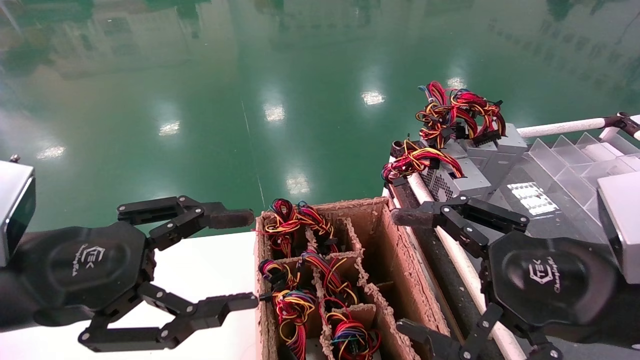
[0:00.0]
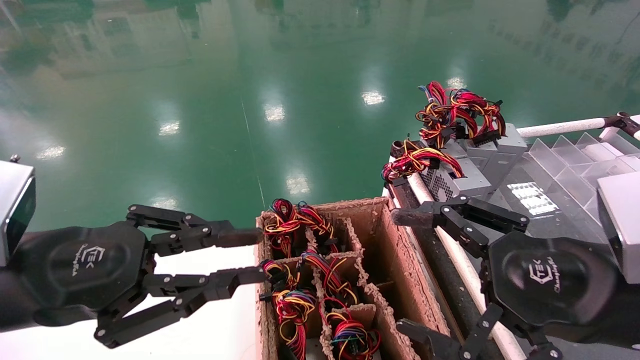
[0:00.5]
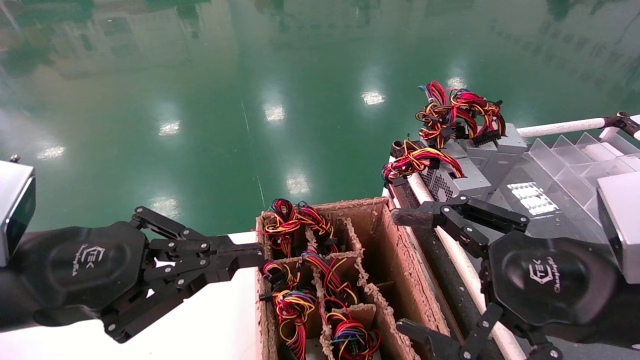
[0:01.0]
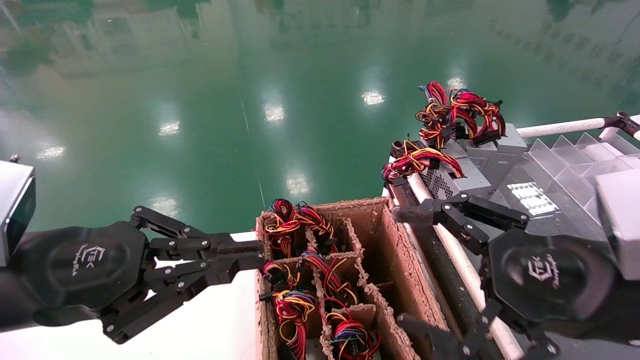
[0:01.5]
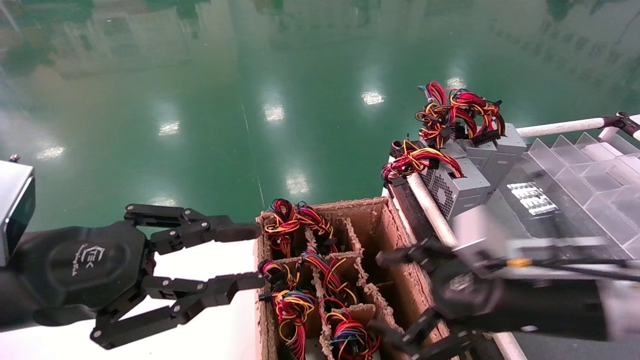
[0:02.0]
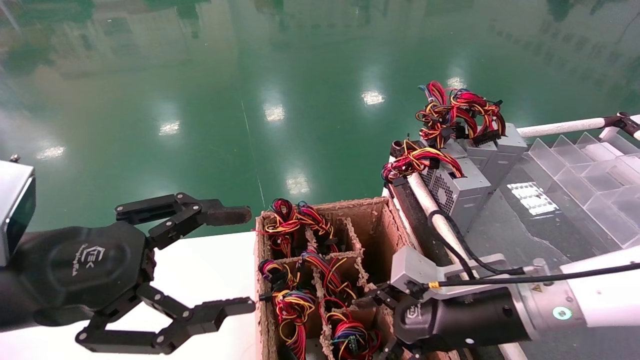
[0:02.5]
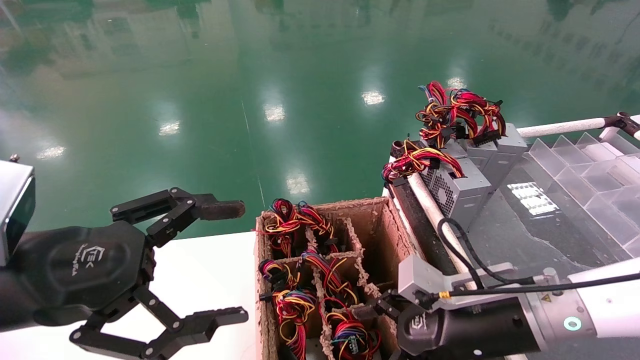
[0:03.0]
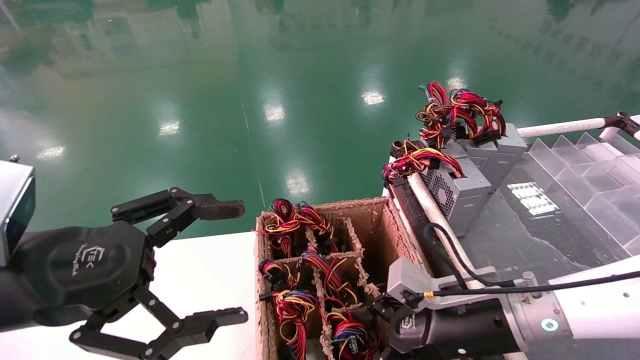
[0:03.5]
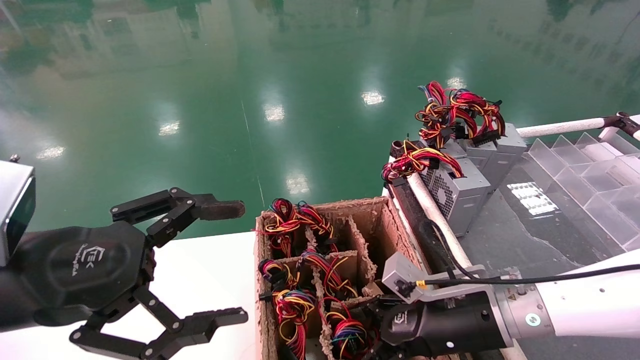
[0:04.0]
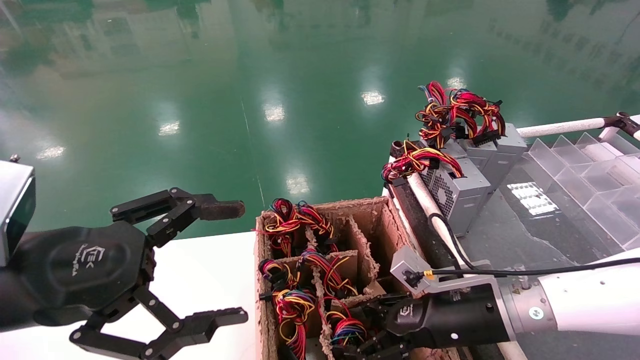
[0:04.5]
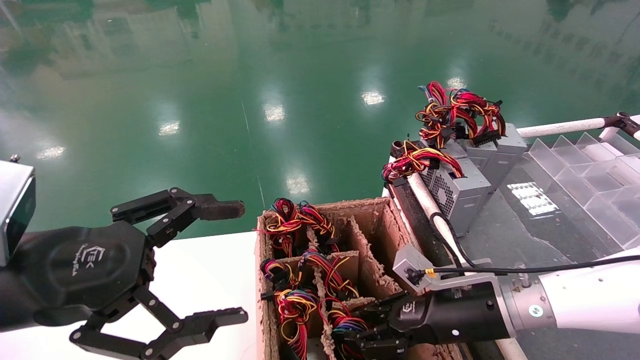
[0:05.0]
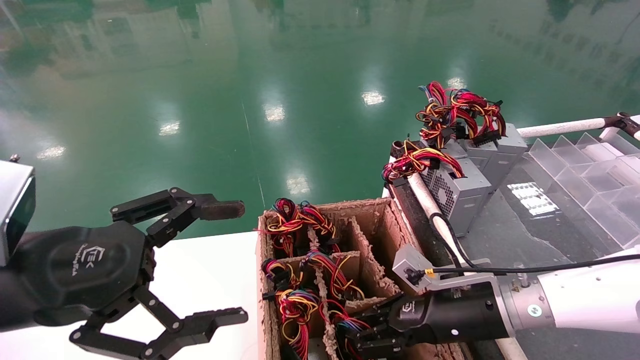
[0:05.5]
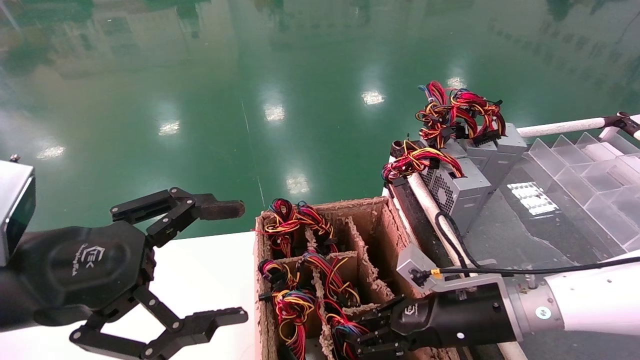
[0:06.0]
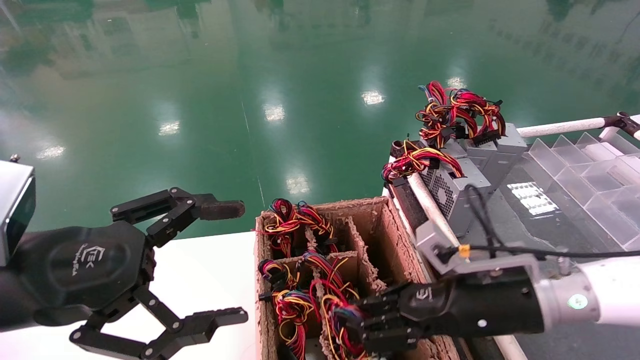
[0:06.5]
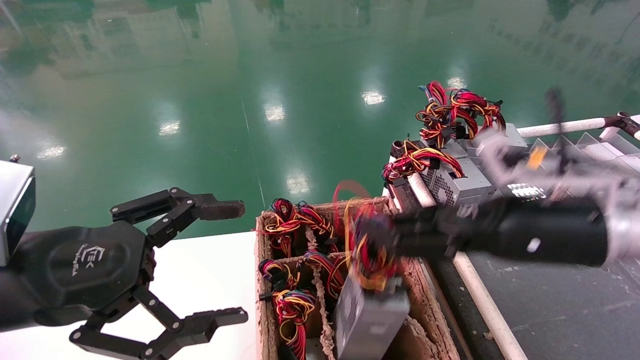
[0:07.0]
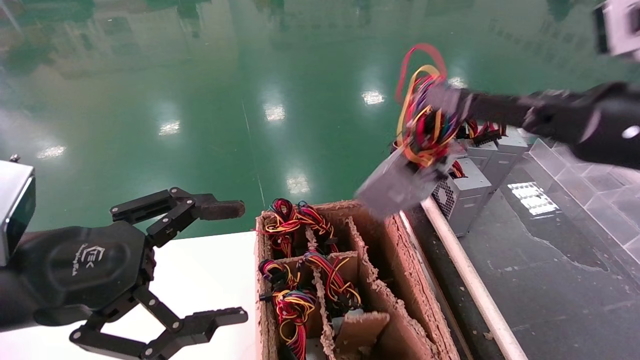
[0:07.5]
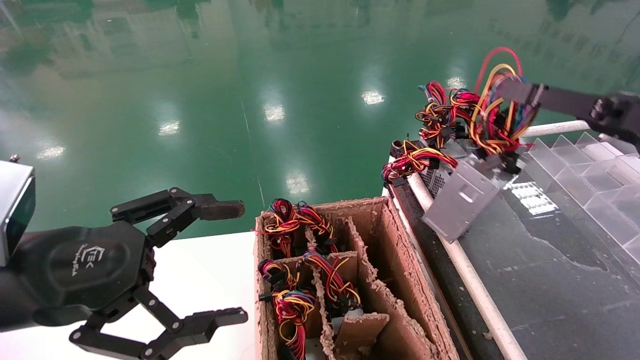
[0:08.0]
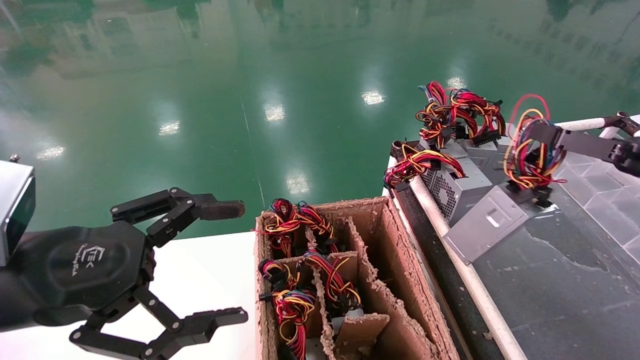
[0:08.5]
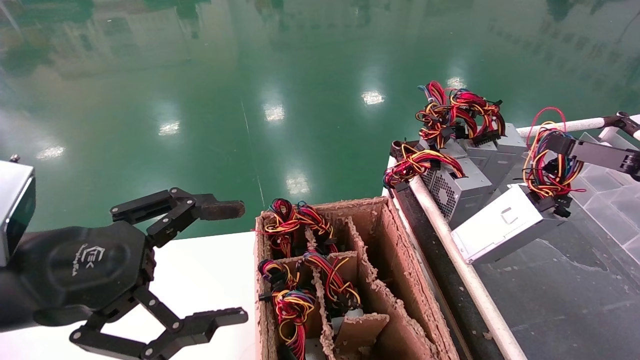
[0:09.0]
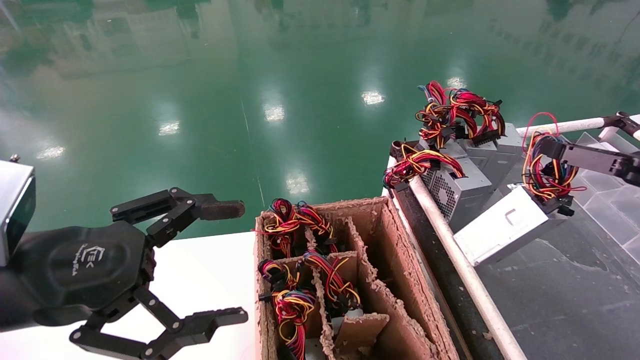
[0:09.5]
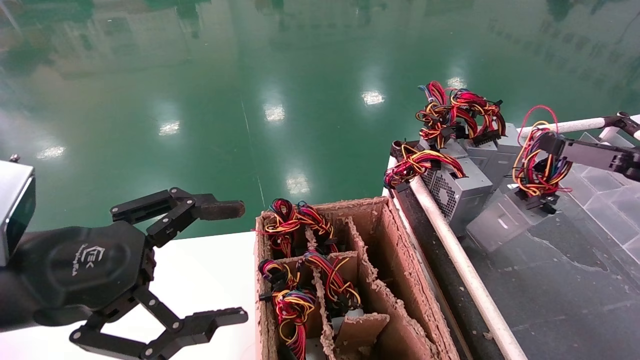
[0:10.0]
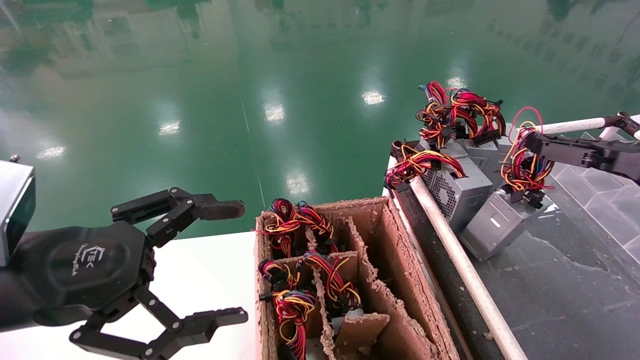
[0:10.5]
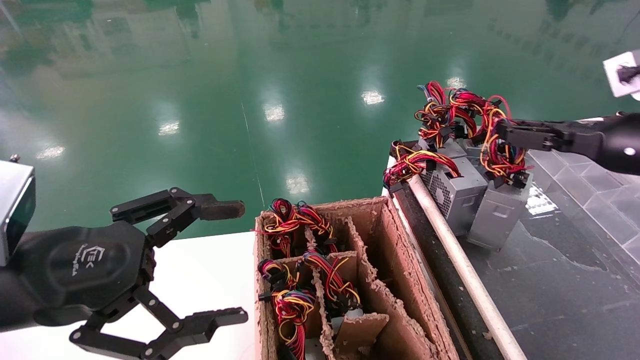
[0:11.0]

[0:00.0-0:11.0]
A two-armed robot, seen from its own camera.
Step, 0:01.0 to 0:05.0: Grab and lift the power supply from the large box.
0:00.0 to 0:02.0: The left gripper closes its fingers. Meanwhile the right gripper goes approximately 10 cm forward and downward.
0:02.0 to 0:03.5: The right gripper travels downward by some 5 cm; the left gripper opens its fingers.
0:03.5 to 0:05.5: The right gripper closes.
0:05.5 to 0:07.5: The right gripper heads upward and to the right, covering about 25 cm.
0:07.5 to 0:09.0: The right gripper goes roughly 15 cm to the right and downward.
0:09.0 to 0:11.0: The right gripper moves forward and to the left, some 10 cm.

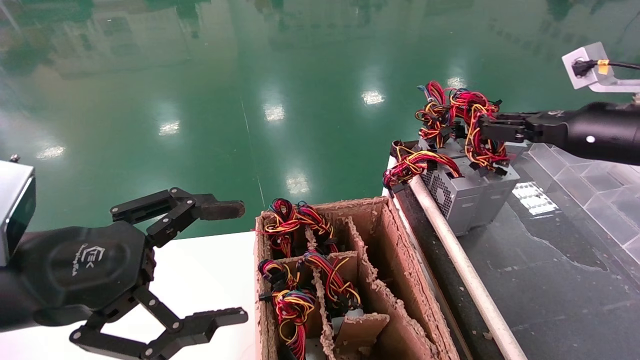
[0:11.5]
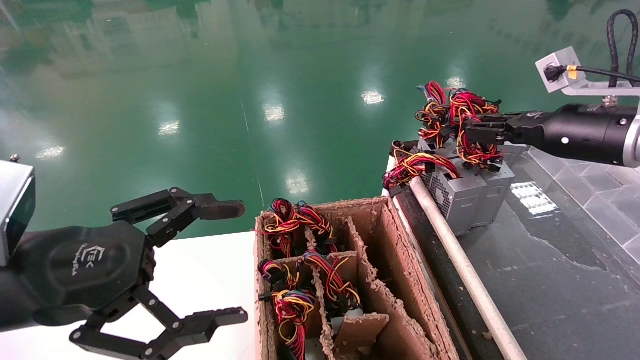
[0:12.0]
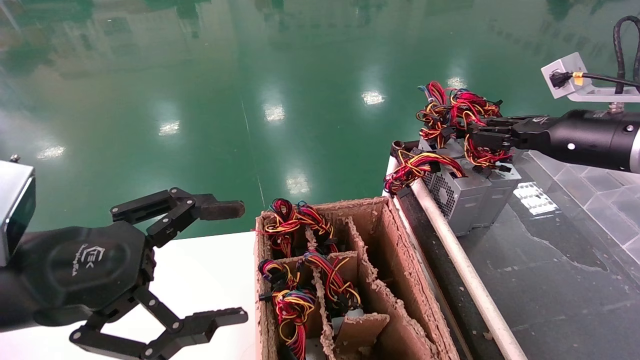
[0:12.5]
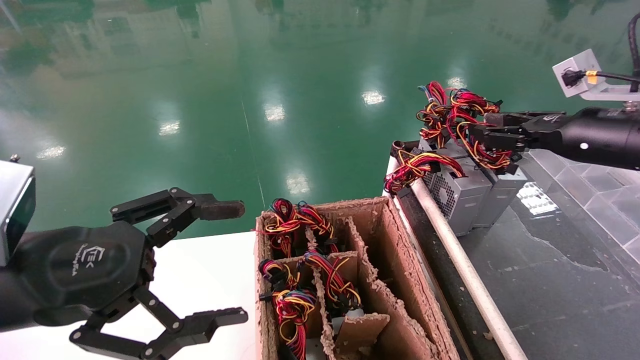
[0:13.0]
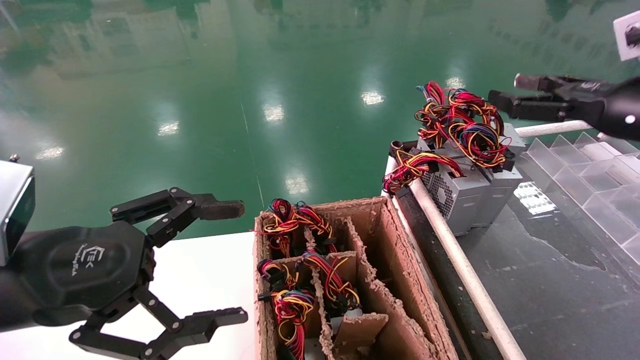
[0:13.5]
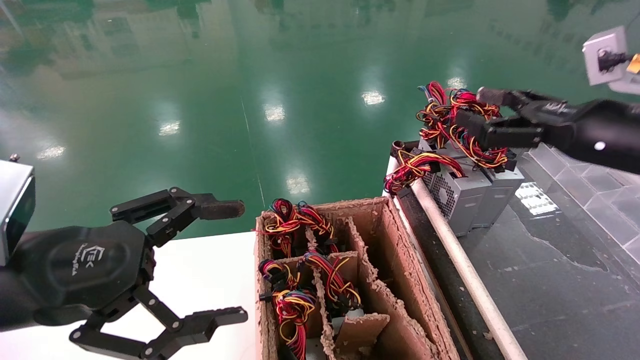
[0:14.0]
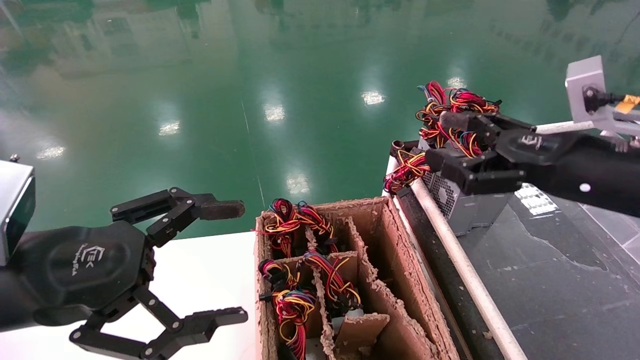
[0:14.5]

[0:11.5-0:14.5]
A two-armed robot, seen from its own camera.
0:11.5 to 0:13.0: The grippers move only a little.
0:13.0 to 0:14.5: The right gripper heads backward and to the left, covering about 10 cm, and opens.

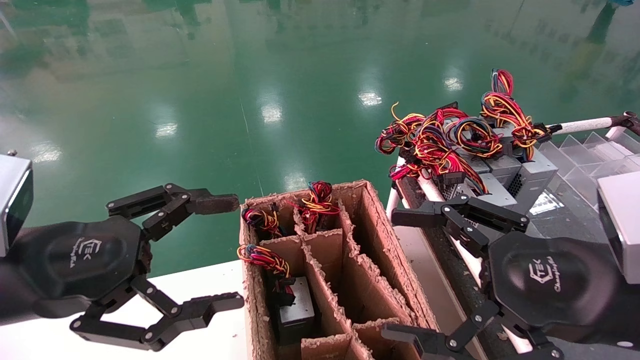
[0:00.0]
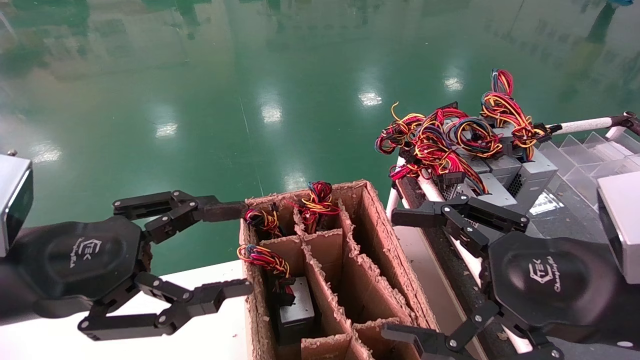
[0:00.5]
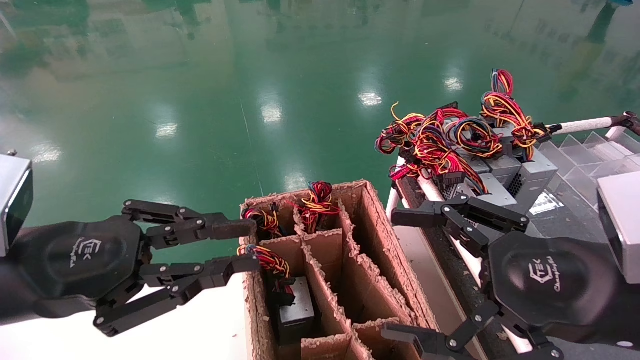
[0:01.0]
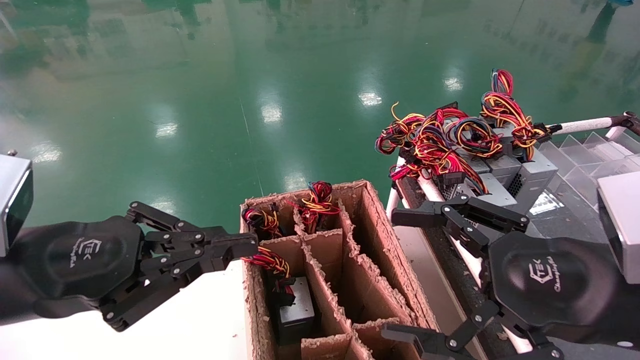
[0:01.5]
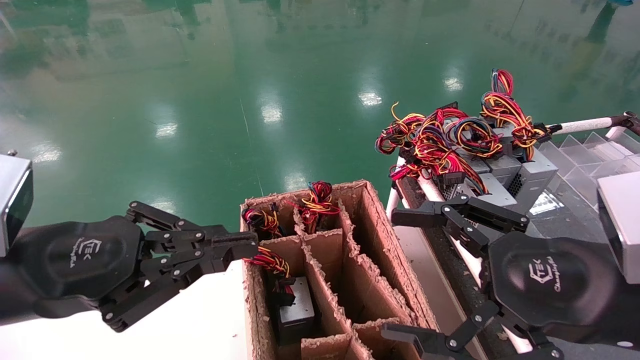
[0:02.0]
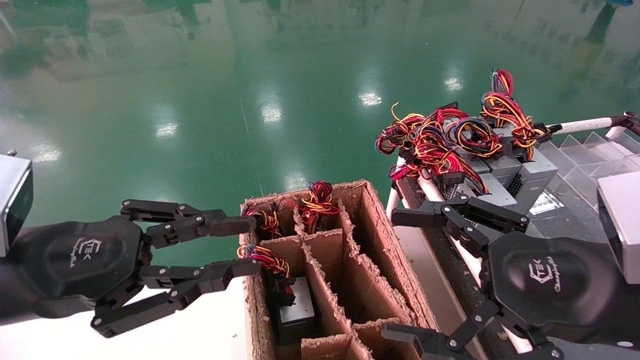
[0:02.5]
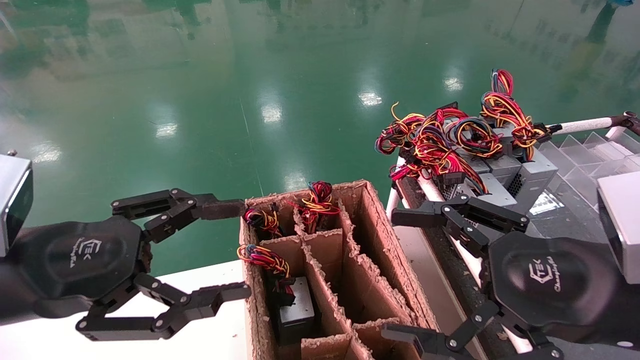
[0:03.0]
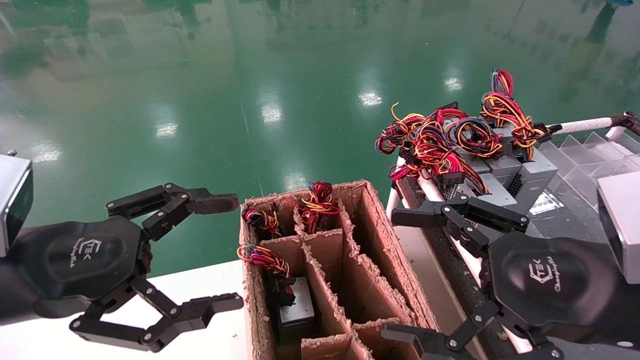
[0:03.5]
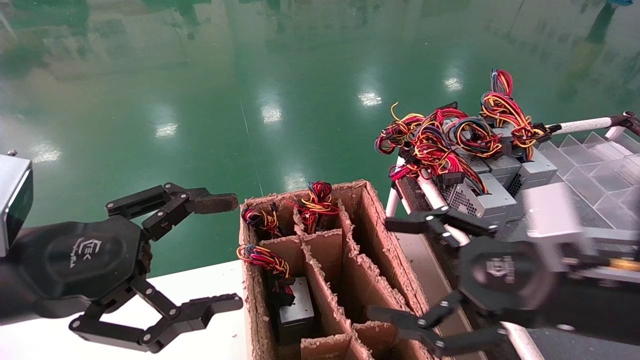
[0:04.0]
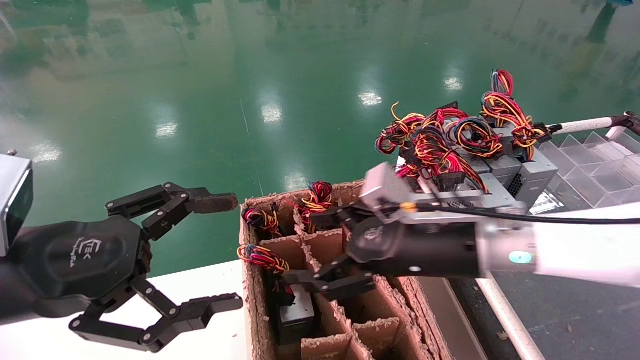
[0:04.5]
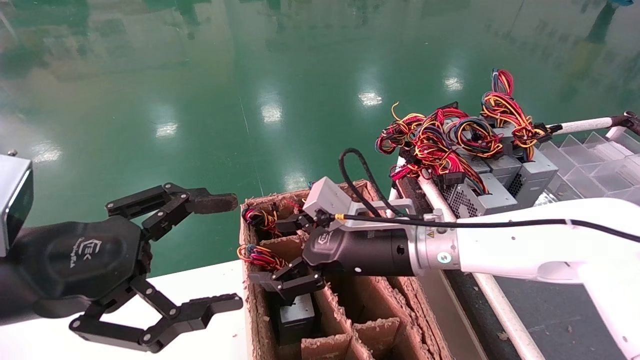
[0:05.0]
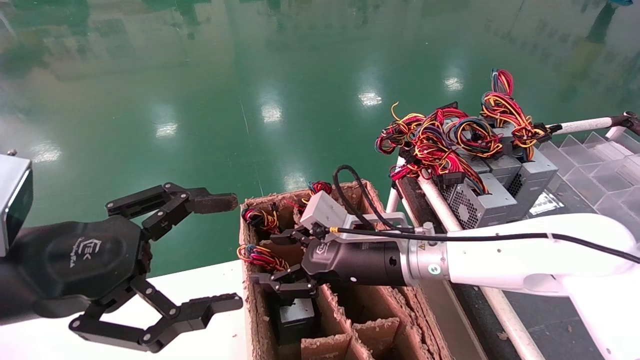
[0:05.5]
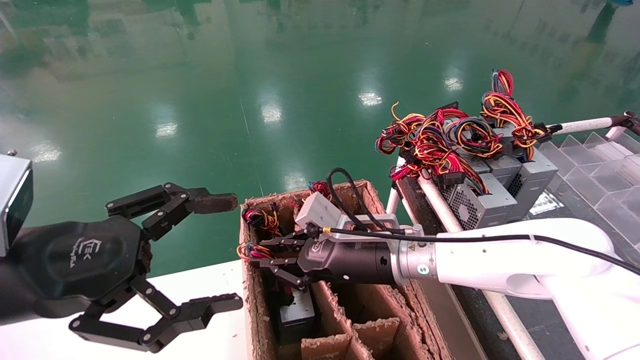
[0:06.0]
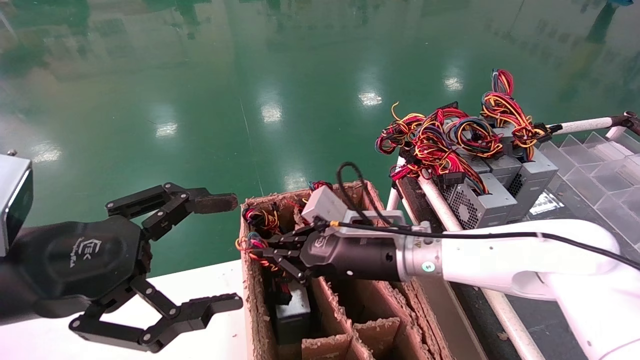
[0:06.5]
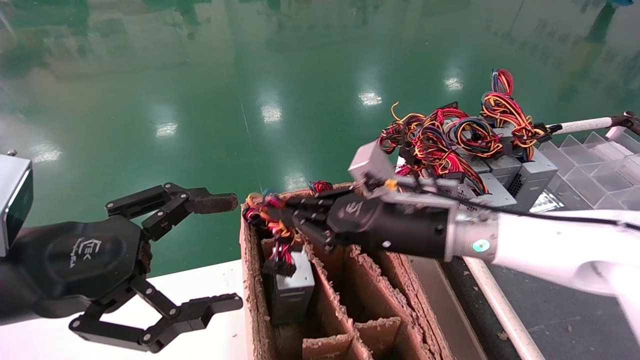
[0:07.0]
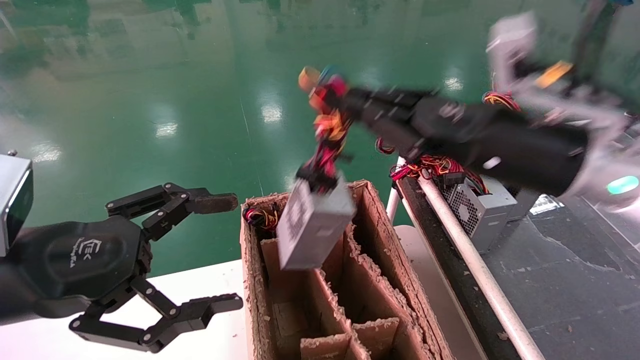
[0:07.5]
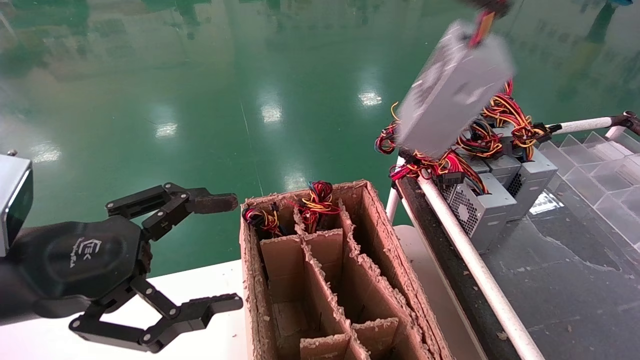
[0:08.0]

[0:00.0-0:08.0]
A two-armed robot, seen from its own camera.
Step, 0:01.0 to 0:06.0: Grab and lift the power supply from the large box.
0:00.0 to 0:02.0: The left gripper closes its fingers.
0:02.0 to 0:04.0: The left gripper opens up; the right gripper ends up about 5 cm from where it was.
0:04.0 to 0:06.0: The right gripper moves to the left and forward, approximately 20 cm, and closes up.
0:06.0 to 0:08.0: The right gripper travels to the right, upward and backward by about 40 cm.
